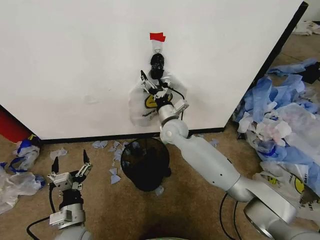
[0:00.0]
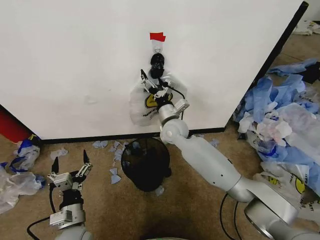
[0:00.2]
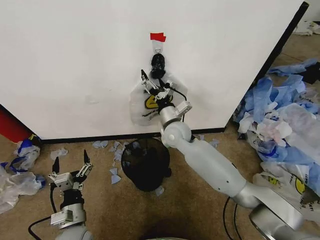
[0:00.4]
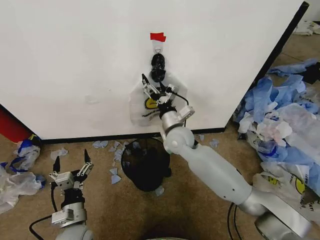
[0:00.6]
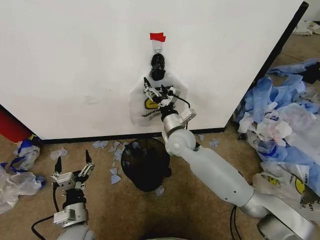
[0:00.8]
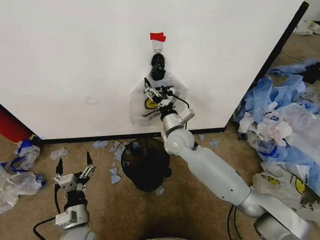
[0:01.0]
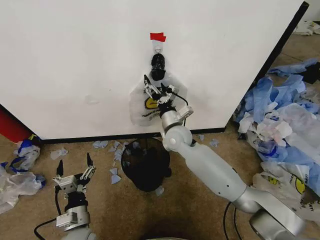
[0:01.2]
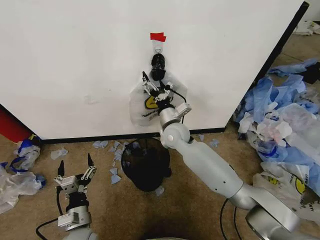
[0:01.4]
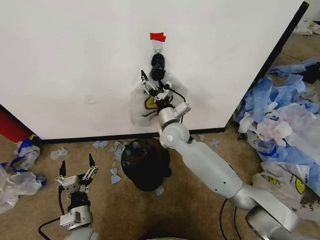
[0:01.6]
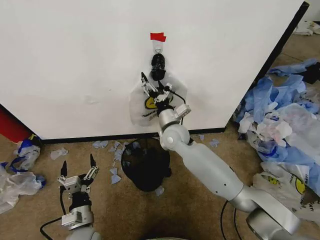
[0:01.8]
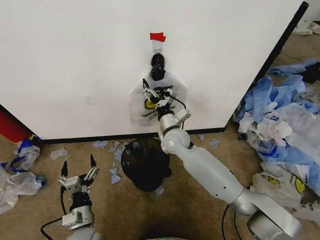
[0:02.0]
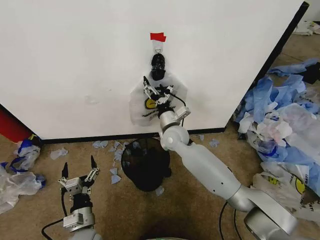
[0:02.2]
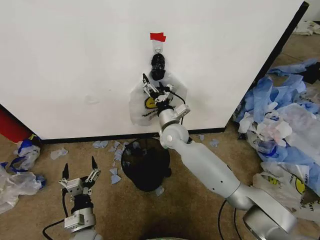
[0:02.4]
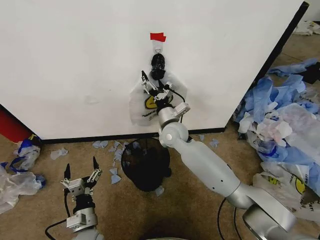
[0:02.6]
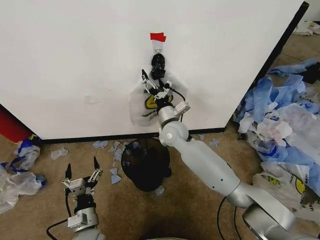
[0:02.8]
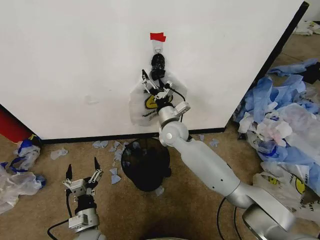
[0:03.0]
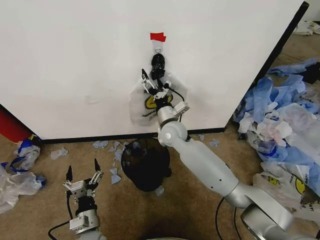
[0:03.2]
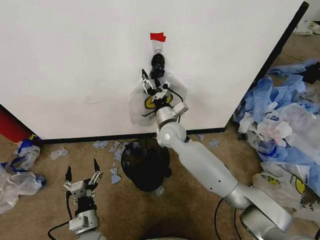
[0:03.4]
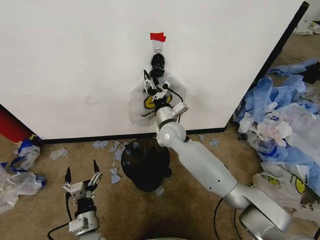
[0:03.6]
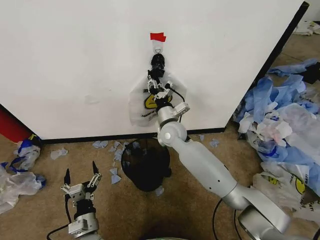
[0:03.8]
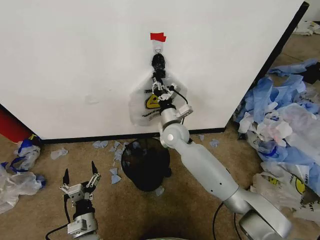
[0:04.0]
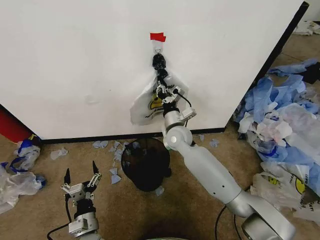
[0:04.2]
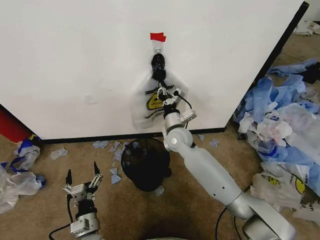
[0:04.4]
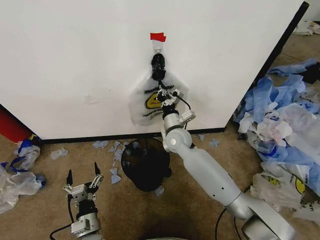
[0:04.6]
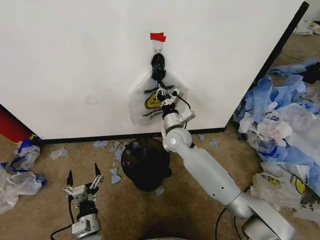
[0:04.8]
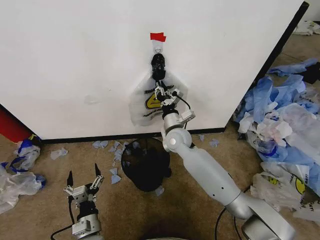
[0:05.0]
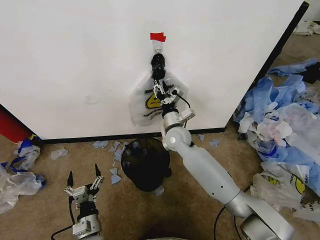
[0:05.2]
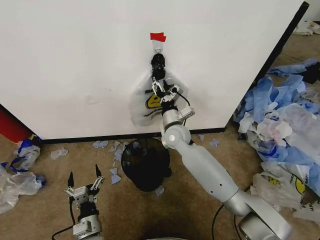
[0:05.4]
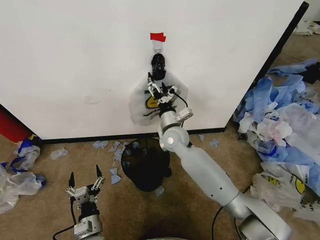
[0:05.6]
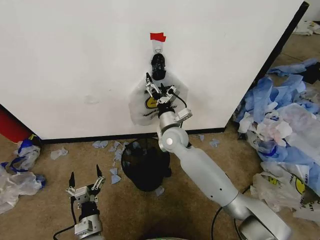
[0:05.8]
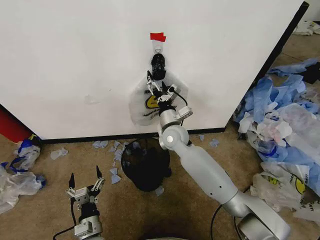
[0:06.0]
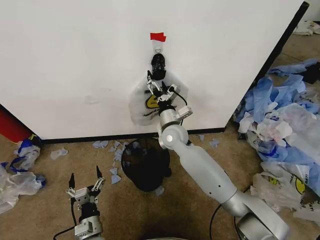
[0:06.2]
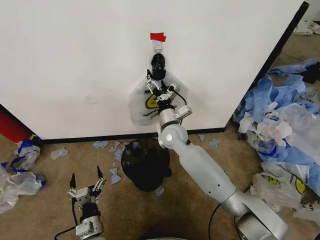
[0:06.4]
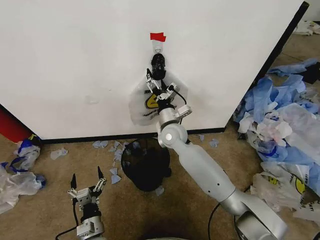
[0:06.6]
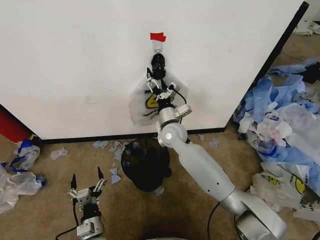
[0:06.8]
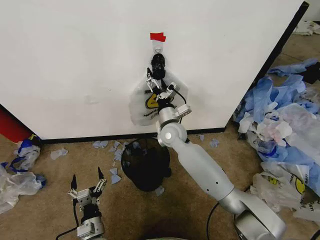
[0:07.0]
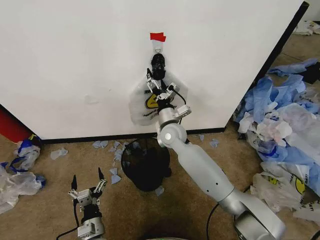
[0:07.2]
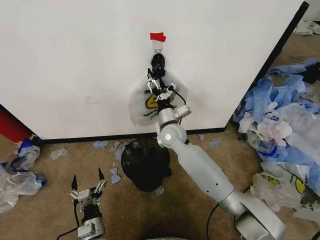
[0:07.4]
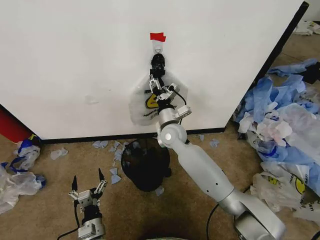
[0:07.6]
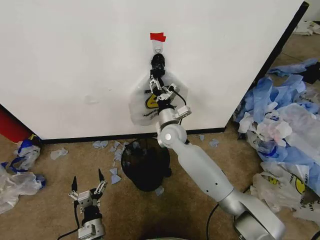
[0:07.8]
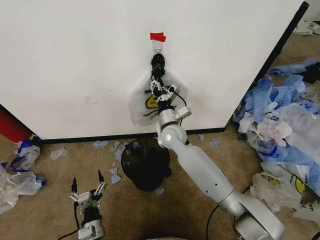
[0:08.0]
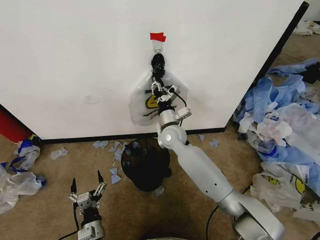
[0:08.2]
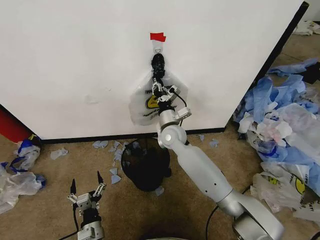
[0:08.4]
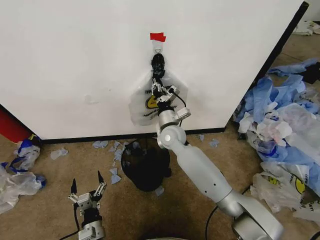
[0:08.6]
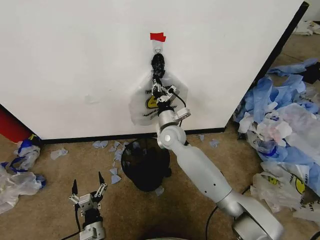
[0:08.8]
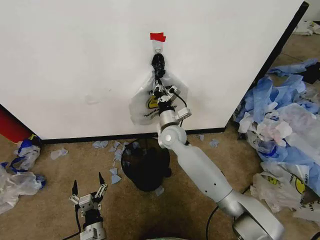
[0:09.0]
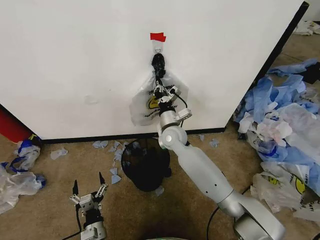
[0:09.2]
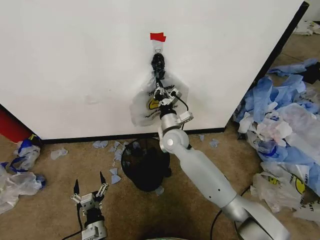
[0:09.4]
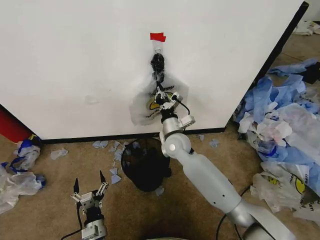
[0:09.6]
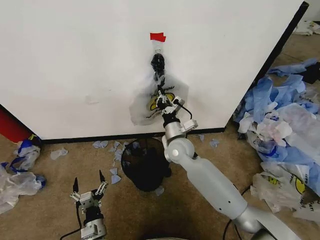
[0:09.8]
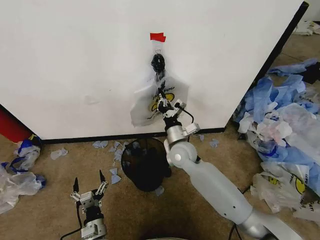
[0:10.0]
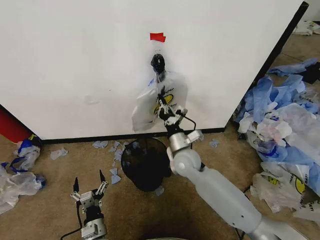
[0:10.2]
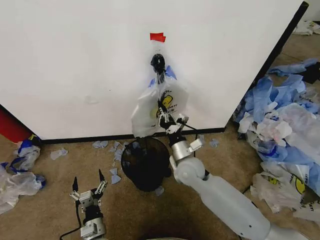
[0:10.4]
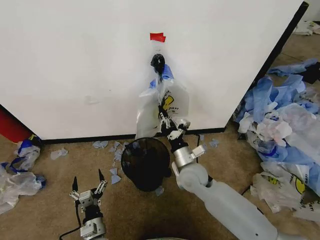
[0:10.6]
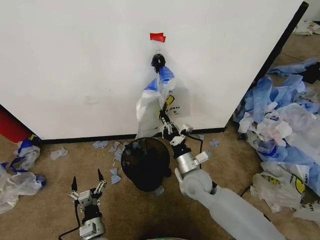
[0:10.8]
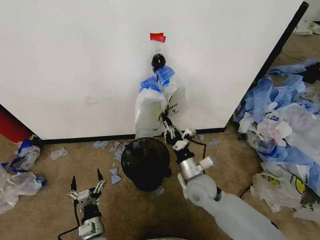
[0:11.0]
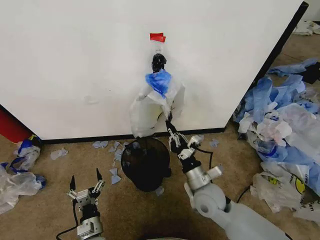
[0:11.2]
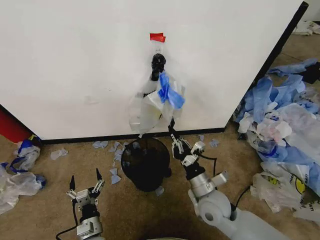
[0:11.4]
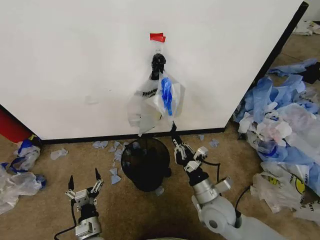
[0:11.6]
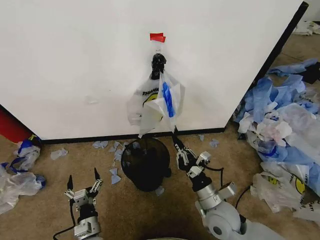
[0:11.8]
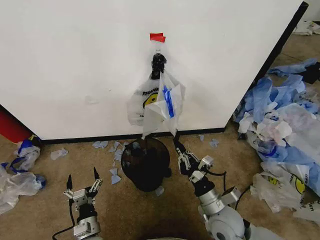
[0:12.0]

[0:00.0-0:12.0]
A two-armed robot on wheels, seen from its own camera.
Task of the whole recording: Pick up the garbage bag from the wall and place it over the trash bin.
0:00.0 to 0:03.0: The grippers stay close to where they were, moving slightly.
0:03.0 to 0:04.4: The right gripper closes.
0:04.4 to 0:06.0: The right gripper opens its fingers.
0:06.0 to 0:07.6: The right gripper closes its fingers.
0:07.6 to 0:09.0: The right gripper closes up.
0:09.0 to 0:10.4: The right gripper shifts some 15 cm backward, to the right and downward.
0:10.4 to 0:12.0: The right gripper heads backward and to the right, covering about 20 cm.

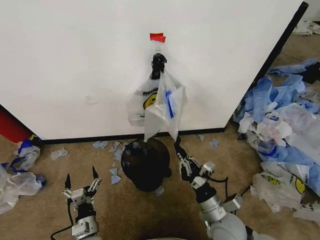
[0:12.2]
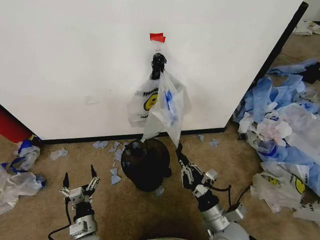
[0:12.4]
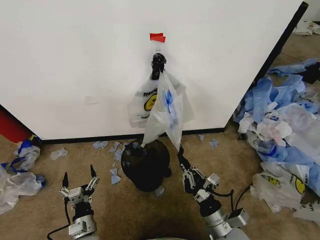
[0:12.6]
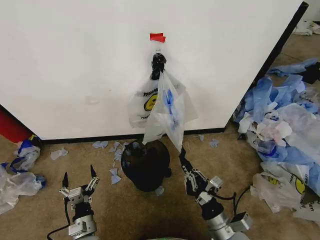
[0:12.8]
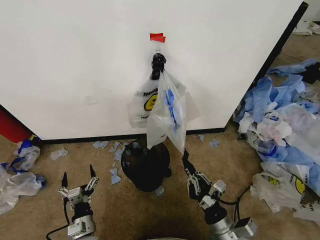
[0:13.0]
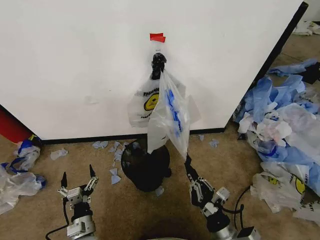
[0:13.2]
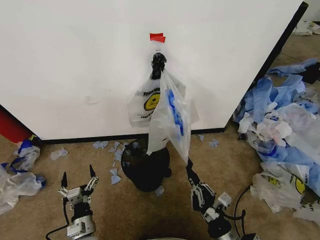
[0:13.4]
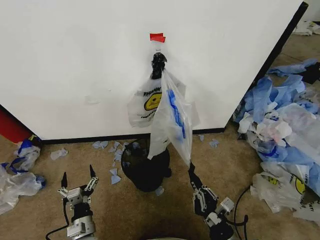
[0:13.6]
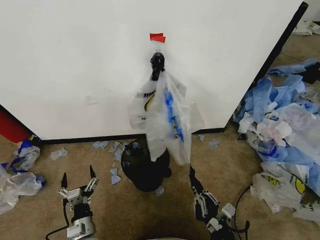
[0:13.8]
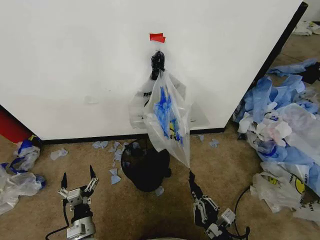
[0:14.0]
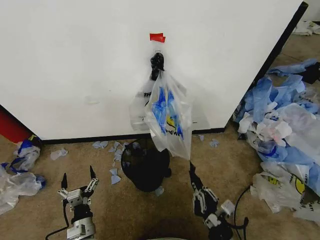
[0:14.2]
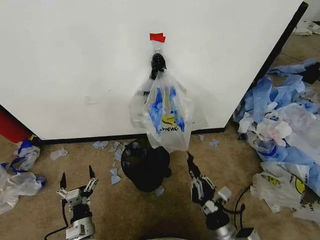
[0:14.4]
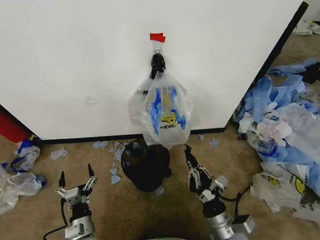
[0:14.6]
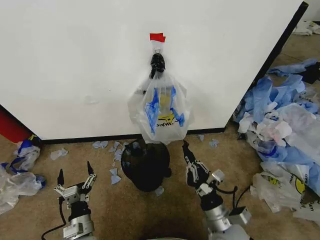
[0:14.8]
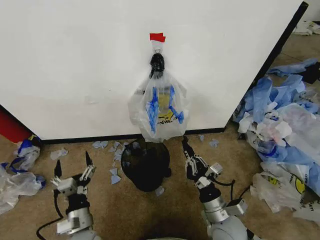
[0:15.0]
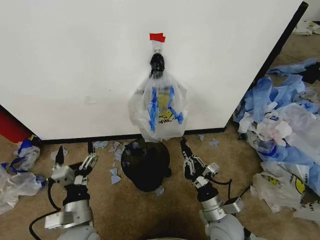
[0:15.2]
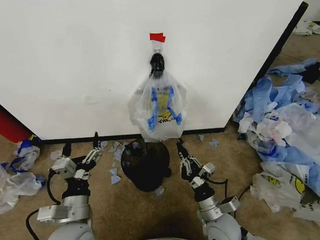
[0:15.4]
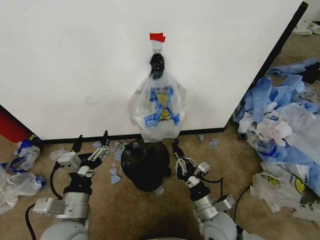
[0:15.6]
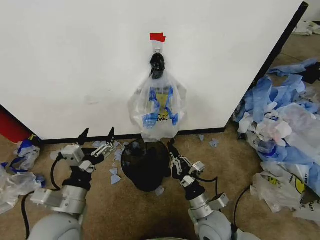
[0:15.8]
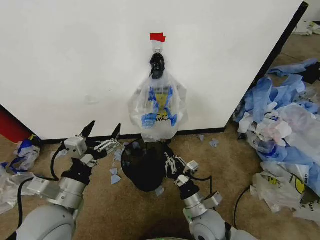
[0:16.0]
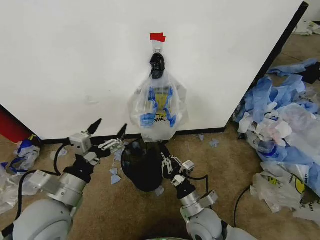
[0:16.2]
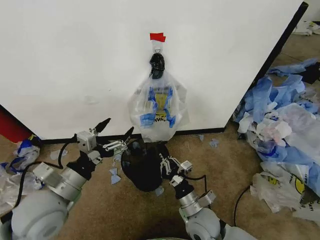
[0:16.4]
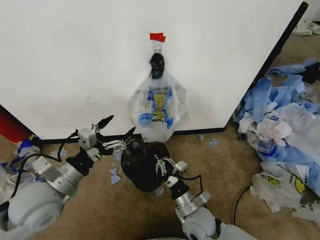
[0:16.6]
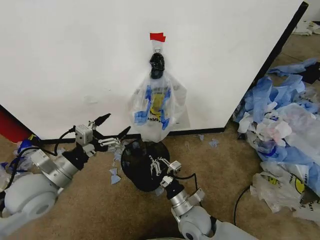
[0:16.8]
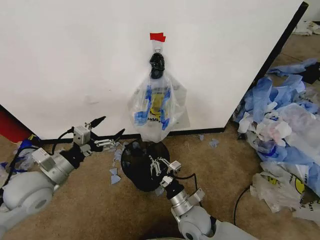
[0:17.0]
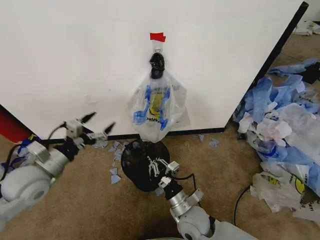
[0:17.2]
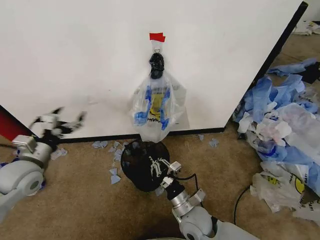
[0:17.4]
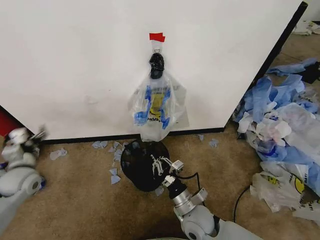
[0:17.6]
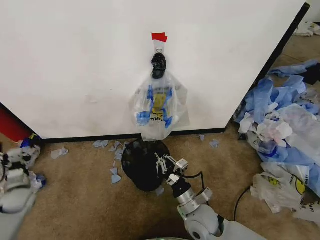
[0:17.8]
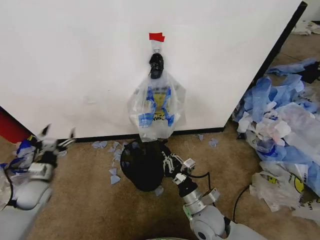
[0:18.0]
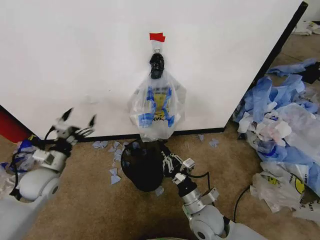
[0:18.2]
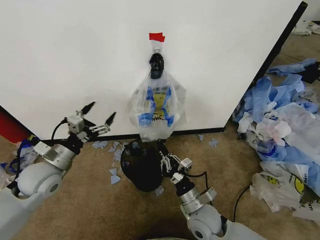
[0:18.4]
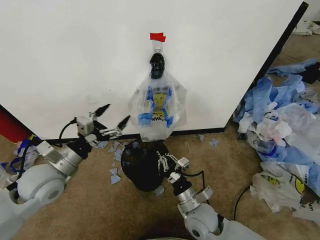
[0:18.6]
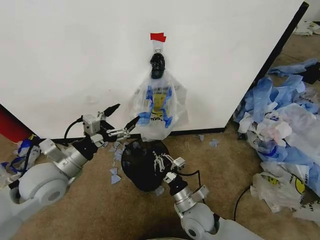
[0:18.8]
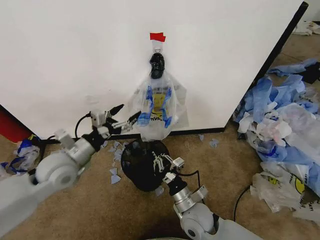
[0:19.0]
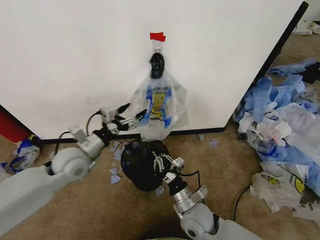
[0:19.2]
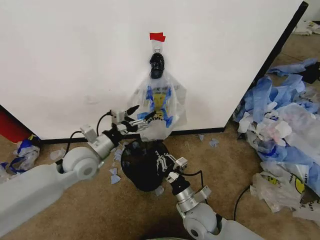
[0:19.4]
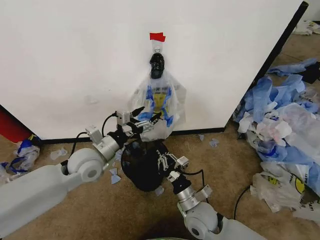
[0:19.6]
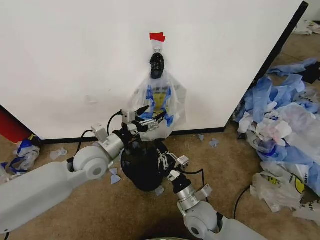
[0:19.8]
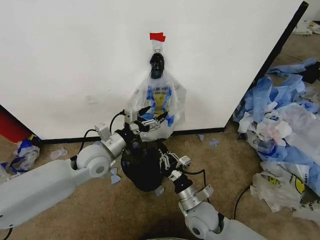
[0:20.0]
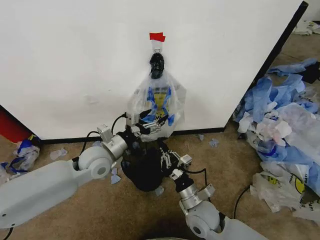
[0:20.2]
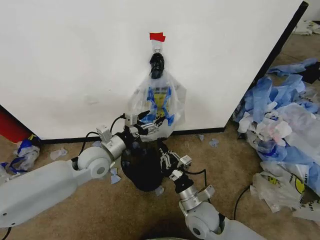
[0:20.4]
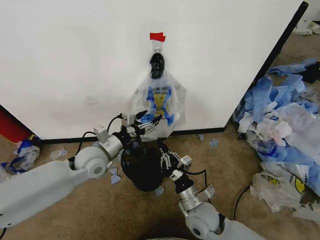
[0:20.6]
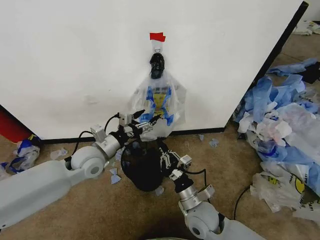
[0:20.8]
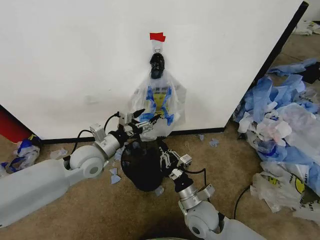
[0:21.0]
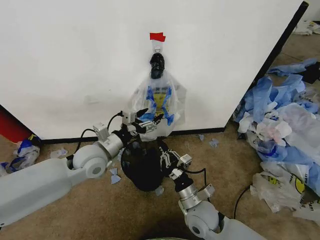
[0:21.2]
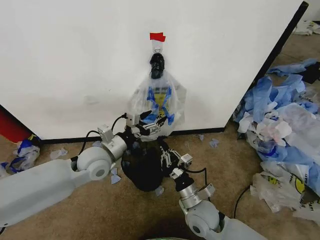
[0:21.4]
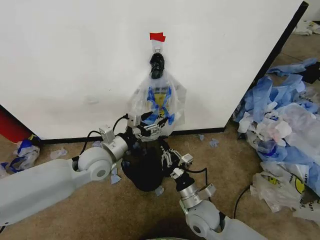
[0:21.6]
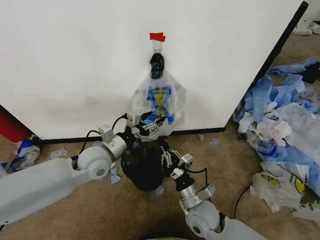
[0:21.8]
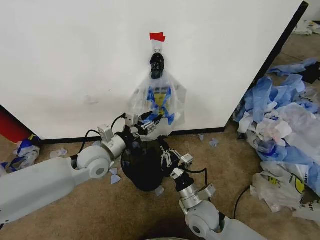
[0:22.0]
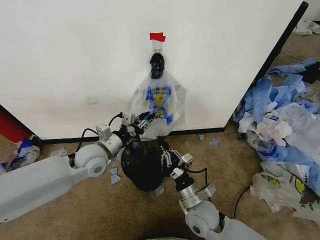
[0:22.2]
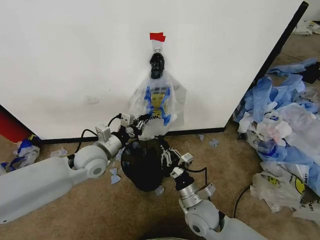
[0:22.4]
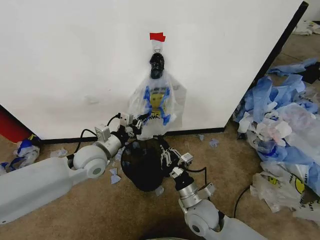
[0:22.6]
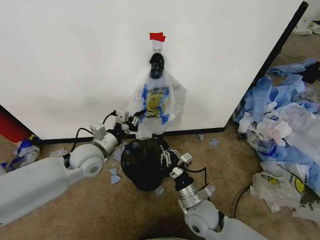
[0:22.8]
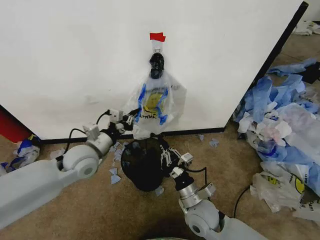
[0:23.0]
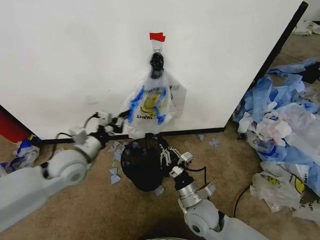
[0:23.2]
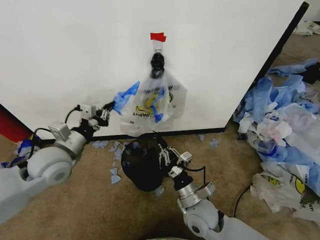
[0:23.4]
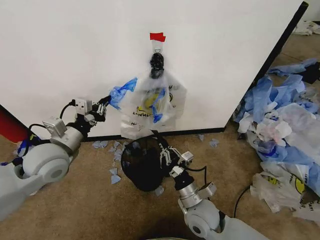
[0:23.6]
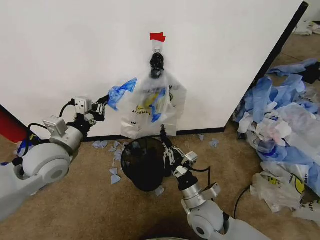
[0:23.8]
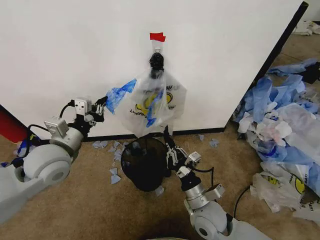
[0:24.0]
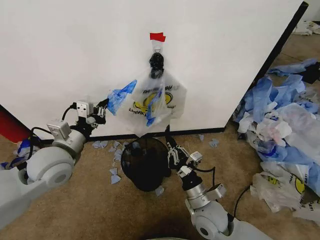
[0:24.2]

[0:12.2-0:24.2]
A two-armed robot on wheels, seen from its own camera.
Task of the whole recording: Pick up the garbage bag from the wall and place it over the trash bin.
0:12.2 to 0:13.8: The right gripper moves backward, about 10 cm.
0:13.8 to 0:15.2: The right gripper goes roughly 10 cm forward. Meanwhile the left gripper travels upward by some 15 cm.
0:15.2 to 0:16.6: The right gripper moves to the left, about 5 cm; the left gripper is displaced upward, to the left and forward by approximately 15 cm.
0:16.6 to 0:18.2: The left gripper moves to the left, forward and downward, approximately 15 cm.
0:18.2 to 0:19.8: The left gripper travels to the right by roughly 15 cm.
0:19.8 to 0:21.2: The grippers move only a little.
0:21.2 to 0:22.6: The left gripper closes.
0:22.6 to 0:24.2: The left gripper shifts roughly 10 cm upward, to the left and backward.
